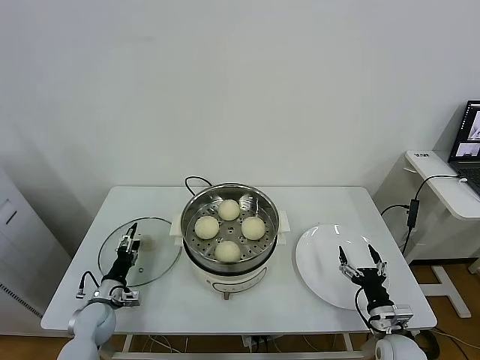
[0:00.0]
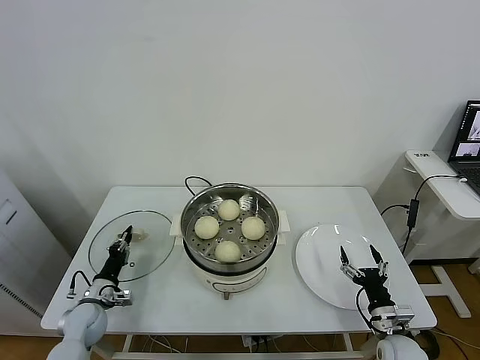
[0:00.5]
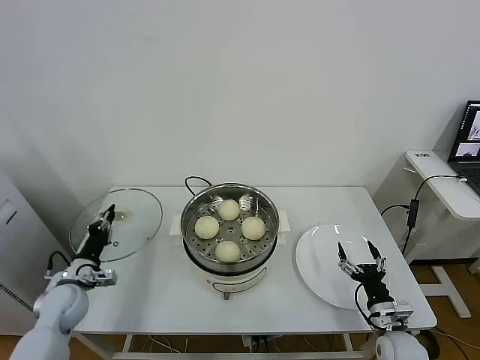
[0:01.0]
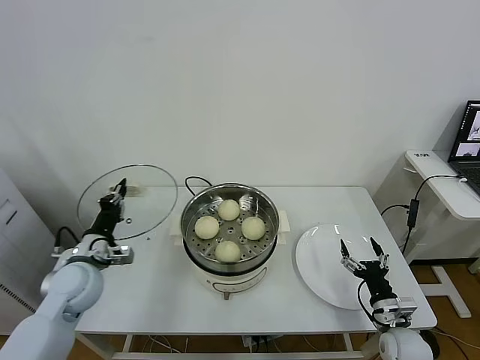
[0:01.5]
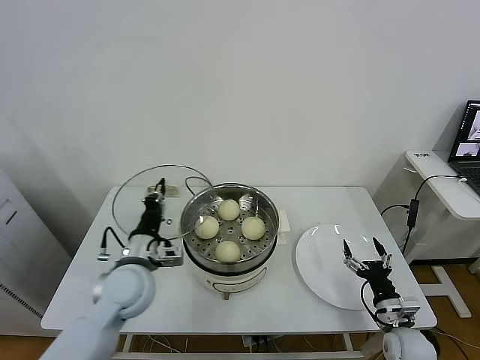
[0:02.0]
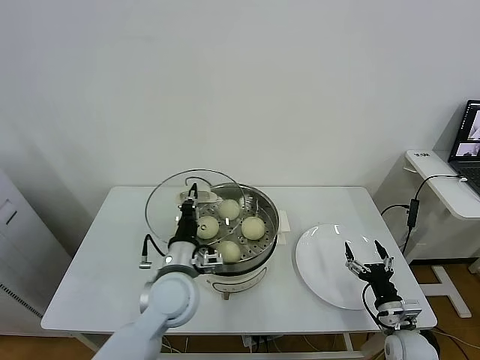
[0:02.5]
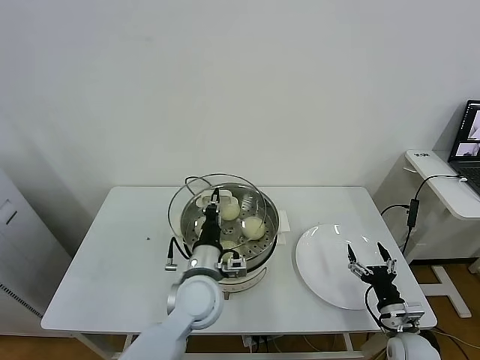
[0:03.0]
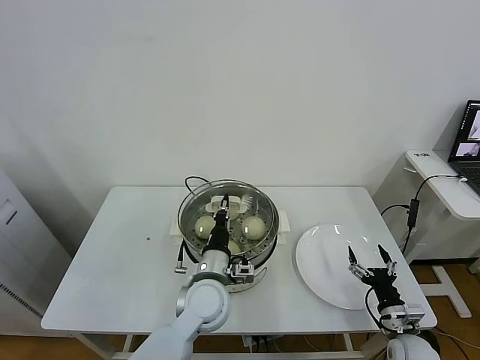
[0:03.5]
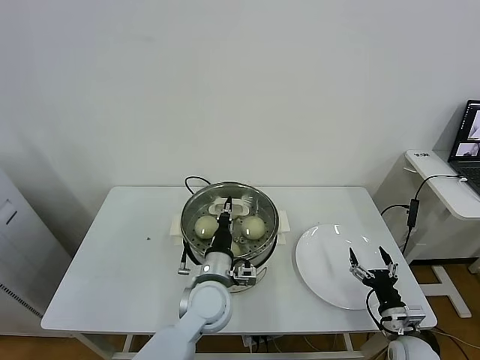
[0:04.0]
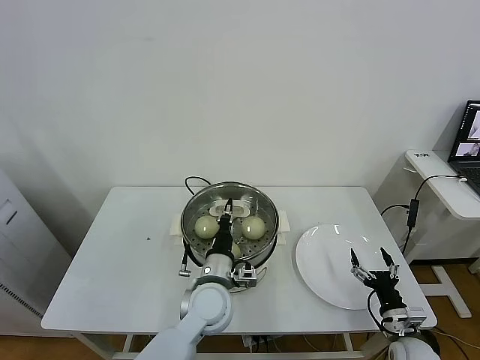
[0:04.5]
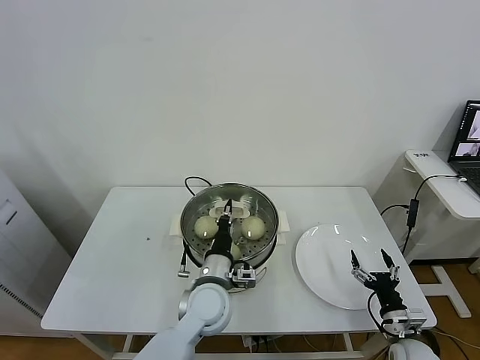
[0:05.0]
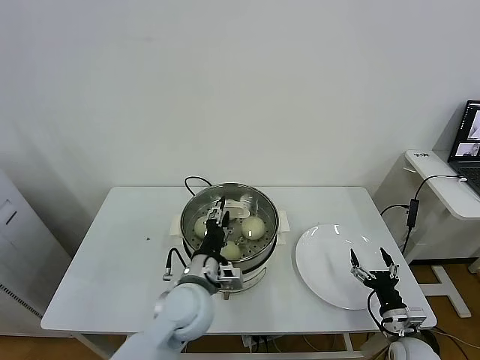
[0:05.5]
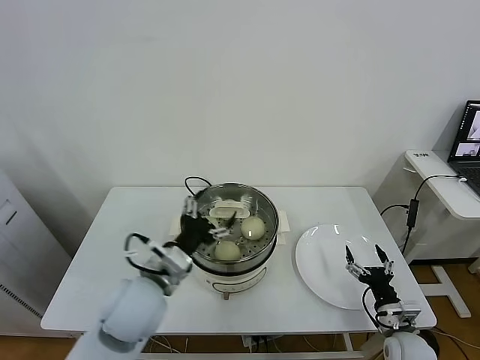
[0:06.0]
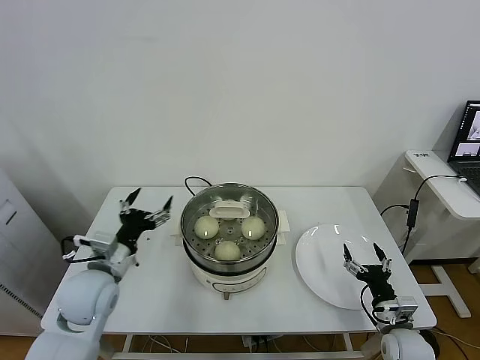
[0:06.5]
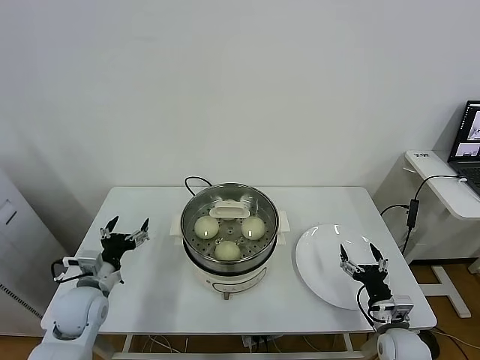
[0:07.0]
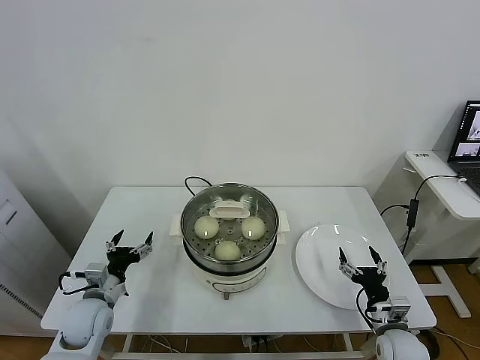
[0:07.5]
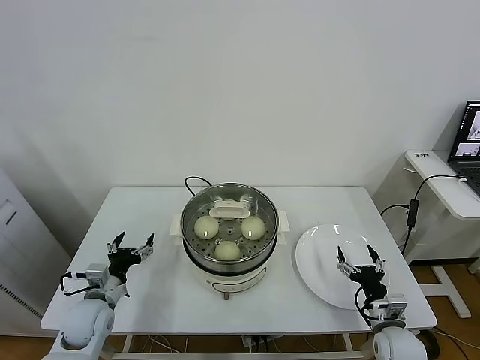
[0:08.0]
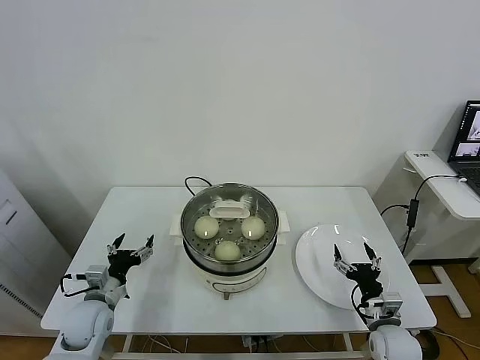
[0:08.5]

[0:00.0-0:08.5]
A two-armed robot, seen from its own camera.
Task of the whole recording: take steamed baozi put them in steamer.
Step, 0:01.0 to 0:05.5: Place the pot lid on the steamer with left gripper.
0:00.0 to 0:02.0: The left gripper is displaced upward and to the right by some 25 cm, and closes its fingers.
0:02.0 to 0:04.0: The left gripper travels to the right by about 15 cm.
0:04.0 to 0:06.5: The left gripper is displaced to the left by about 20 cm, and opens up.
0:06.5 to 0:08.5: The left gripper travels downward and to the left by about 15 cm.

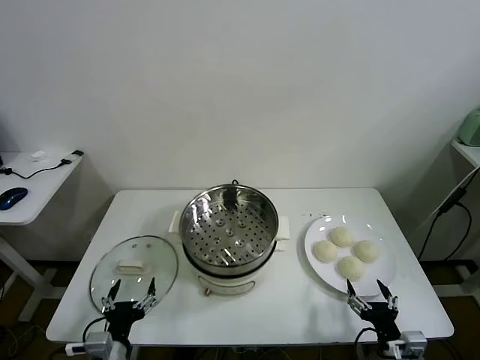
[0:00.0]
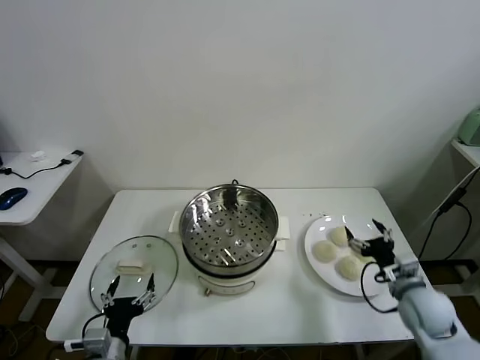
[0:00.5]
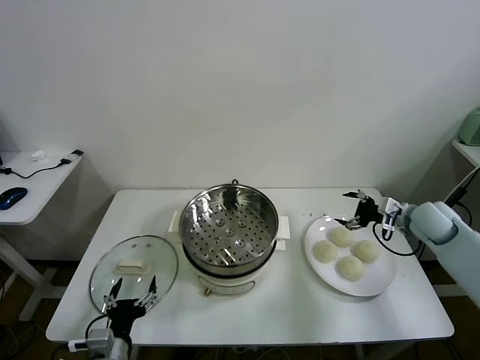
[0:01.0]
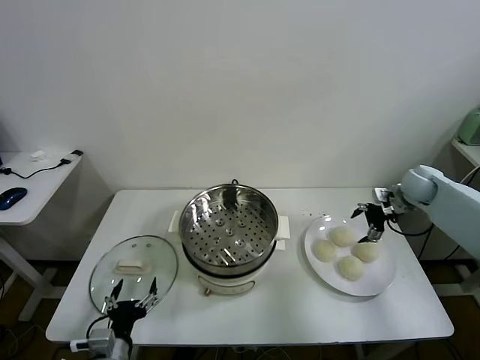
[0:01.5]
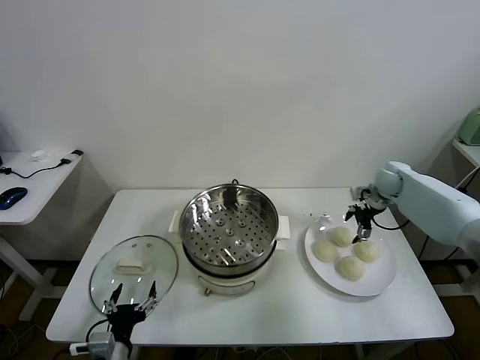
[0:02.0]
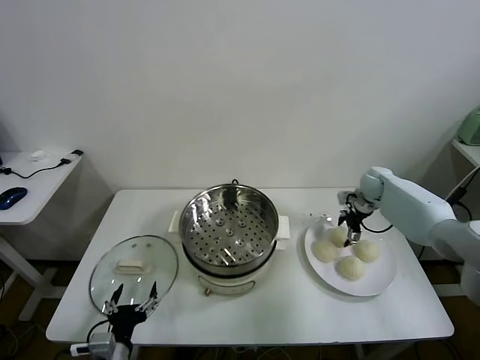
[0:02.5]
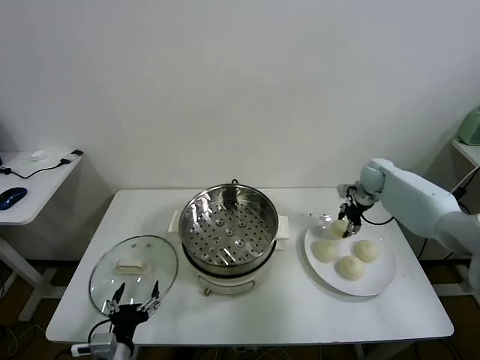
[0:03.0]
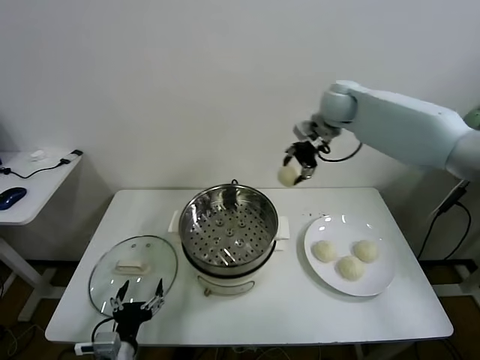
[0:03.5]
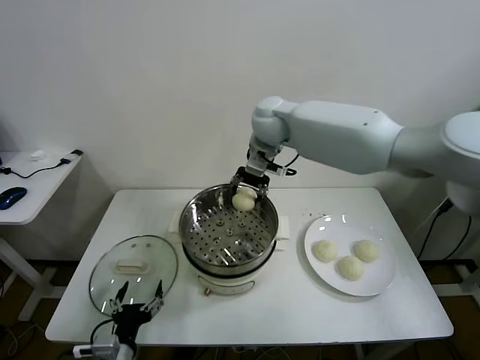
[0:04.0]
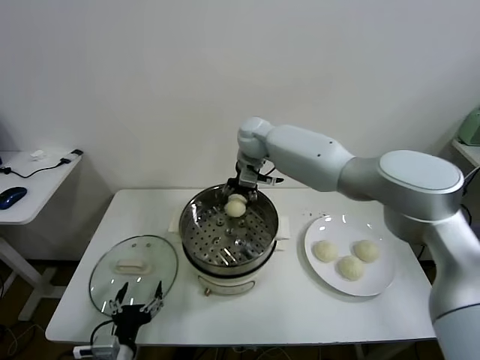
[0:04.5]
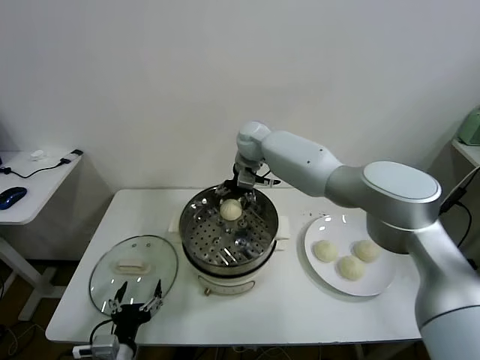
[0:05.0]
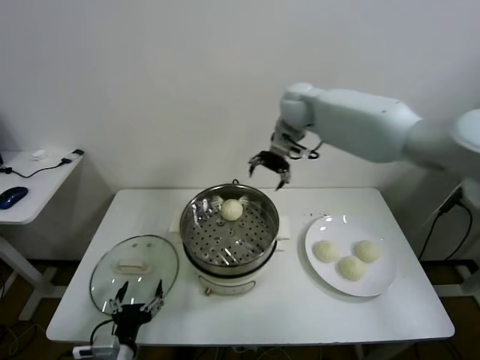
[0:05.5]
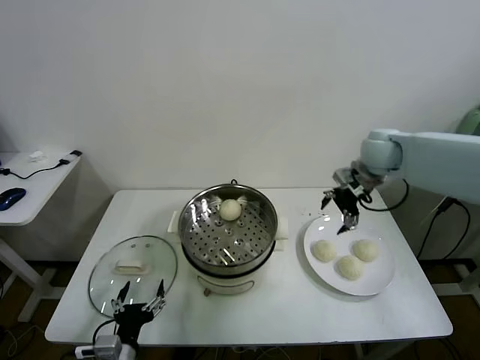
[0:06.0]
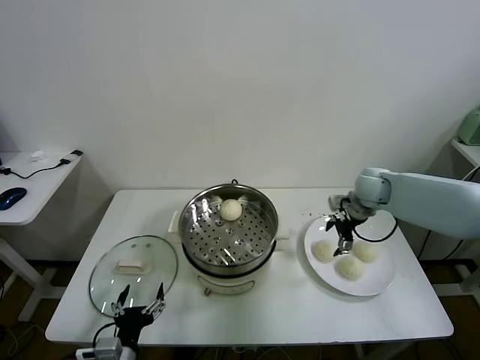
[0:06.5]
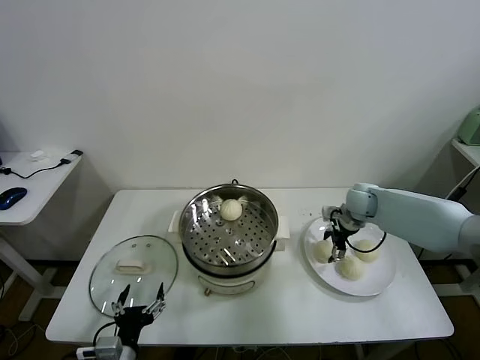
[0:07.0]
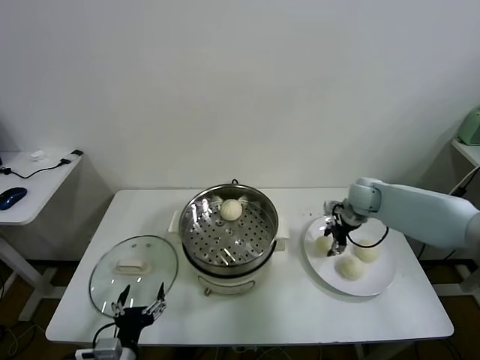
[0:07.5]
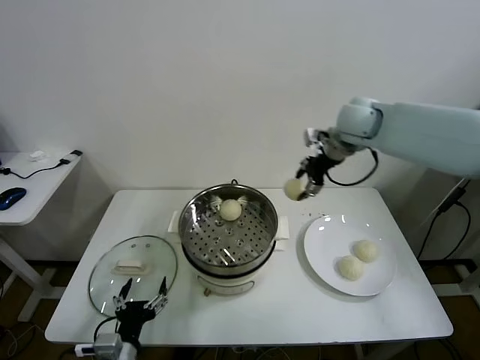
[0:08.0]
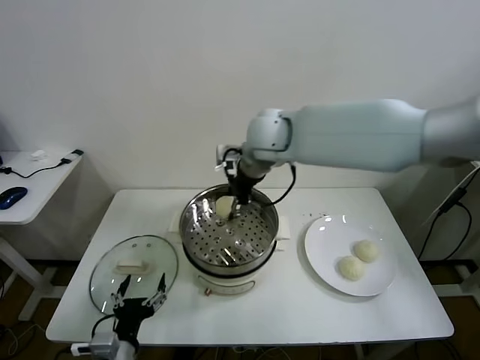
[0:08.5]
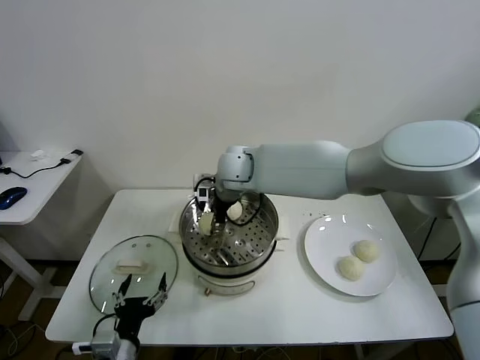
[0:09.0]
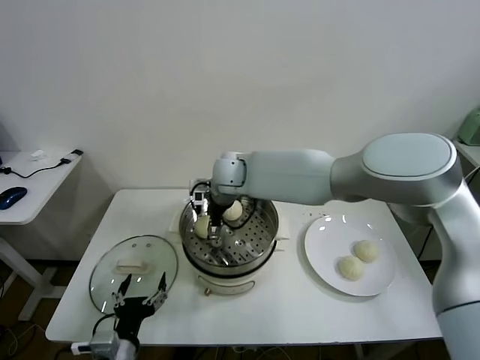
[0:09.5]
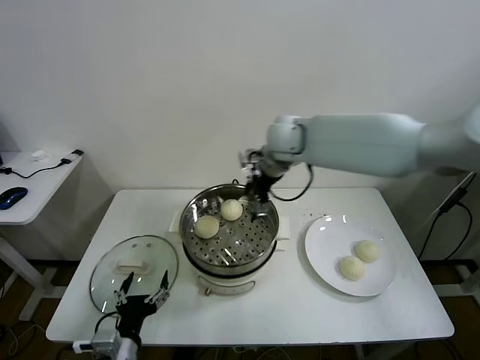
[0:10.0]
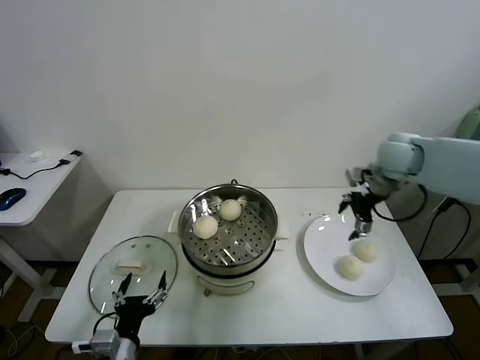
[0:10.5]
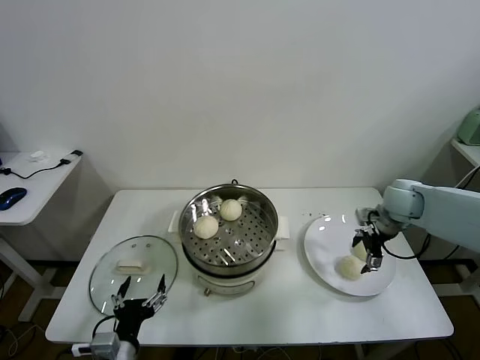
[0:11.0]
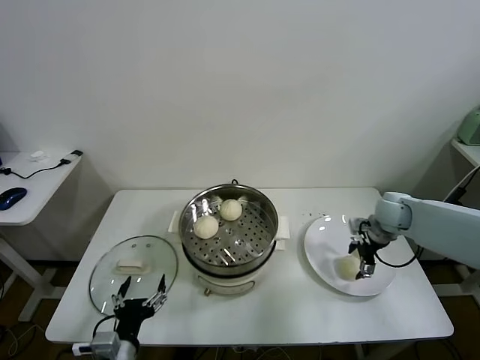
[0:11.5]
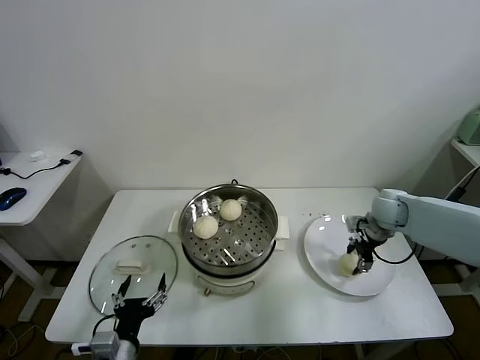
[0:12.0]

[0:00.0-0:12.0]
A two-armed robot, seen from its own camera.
Task of the whole recording: take steamed baozi put them in steamer.
Step, 0:00.0 to 0:02.5: Grasp the baozi in the plate with right gripper.
Step, 0:03.0 to 0:04.5: Place the baozi on the steamer with right gripper.
Step, 0:05.0 to 0:07.0: Grasp the baozi in the plate with right gripper.
Step, 0:07.5 to 0:09.5: Place the baozi on the steamer with right gripper.
Step, 0:10.0 to 0:11.5: Grasp the baozi in the plate with right gripper.
0:02.0 to 0:04.0: The right gripper is displaced to the left and upward by roughly 40 cm, and closes its fingers.
0:04.0 to 0:06.0: The right gripper moves to the right, some 25 cm, and opens up.
0:06.0 to 0:08.0: The right gripper shifts some 15 cm upward and to the left, and closes up.
0:08.0 to 0:10.0: The right gripper reaches roughly 25 cm to the left, then returns, and opens.
0:10.0 to 0:12.0: The right gripper is displaced to the right and downward by roughly 30 cm, and closes.

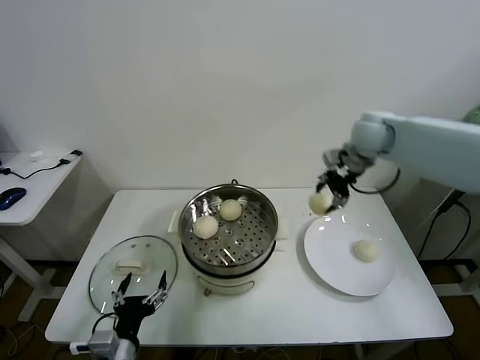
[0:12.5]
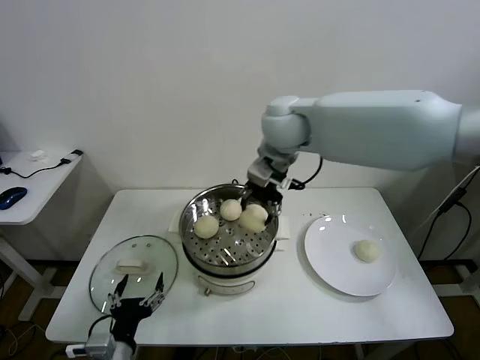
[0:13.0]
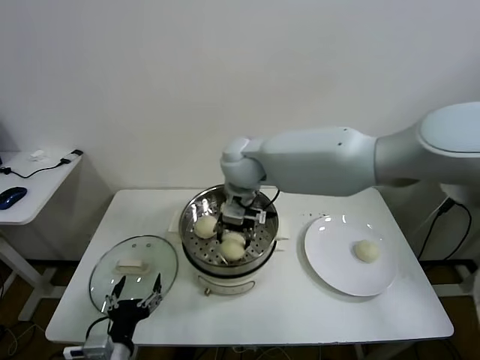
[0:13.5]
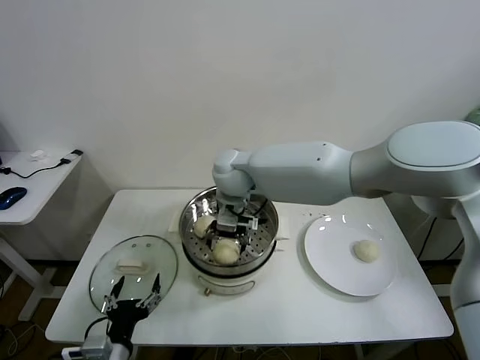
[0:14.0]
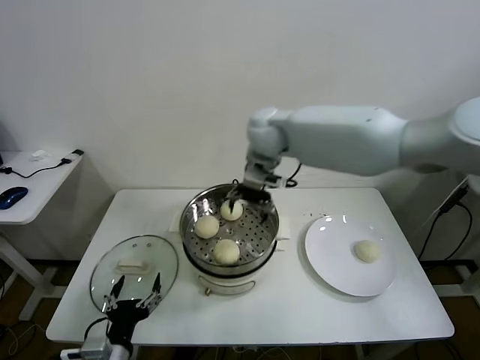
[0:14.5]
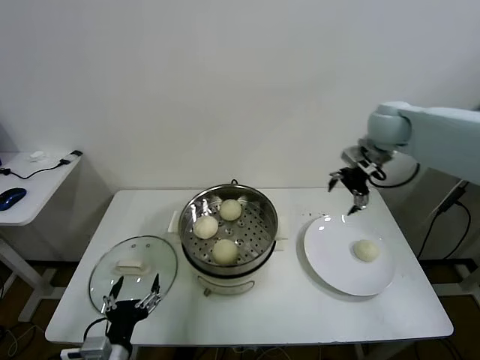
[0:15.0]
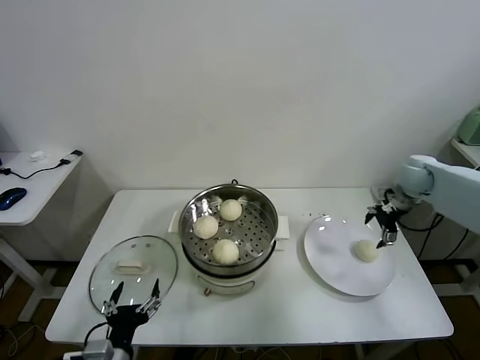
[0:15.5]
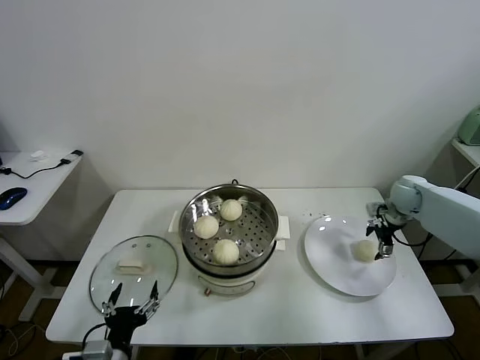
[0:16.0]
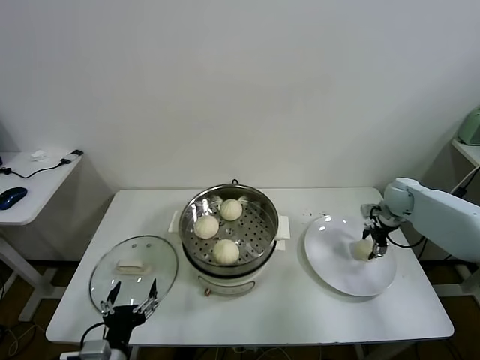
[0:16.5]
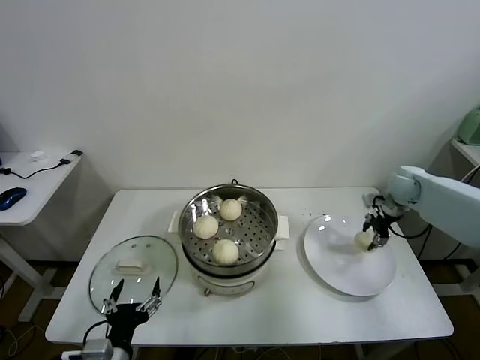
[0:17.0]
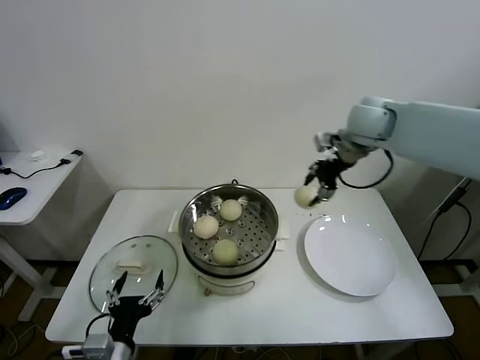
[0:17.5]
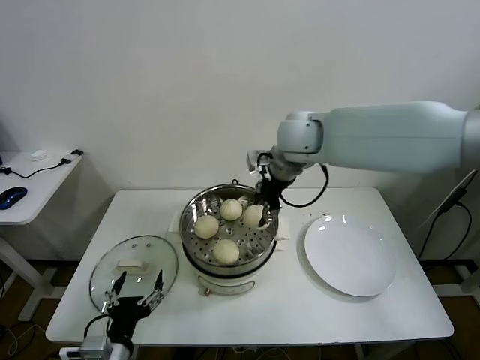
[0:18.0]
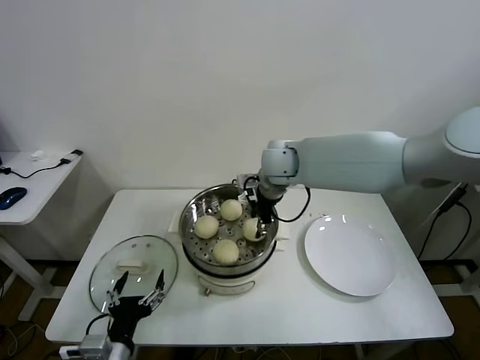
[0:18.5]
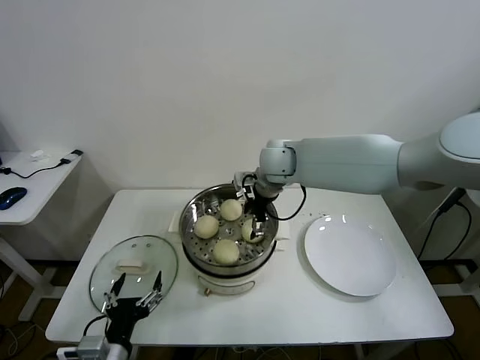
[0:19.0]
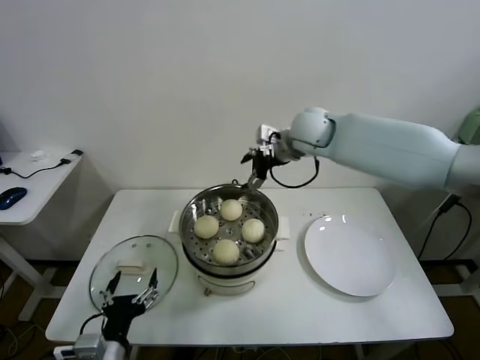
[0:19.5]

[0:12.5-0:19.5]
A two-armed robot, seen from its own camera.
Task of the whole recording: take steamed baozi put them in steamer.
Step, 0:12.5 to 0:14.0: Place the baozi on the steamer with right gripper.
Step, 0:14.5 to 0:16.5: Grasp the baozi in the plate with right gripper.
Step, 0:17.0 to 0:18.5: Place the baozi on the steamer with right gripper.
0:12.5 to 0:14.5: The right gripper is displaced to the left by some 20 cm, and opens up.
0:14.5 to 0:16.0: The right gripper goes some 40 cm to the right and downward.
0:16.0 to 0:17.5: The right gripper heads upward and to the left, covering about 30 cm, and closes its fingers.
0:17.5 to 0:19.5: The right gripper is displaced to the left by about 10 cm, and opens its fingers.
